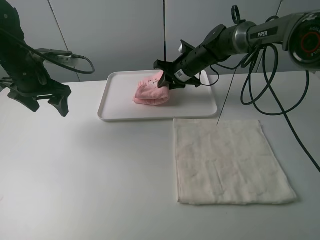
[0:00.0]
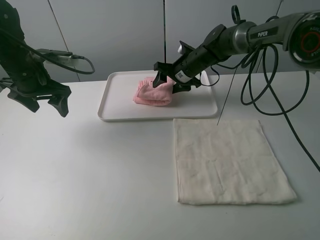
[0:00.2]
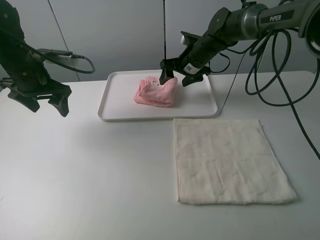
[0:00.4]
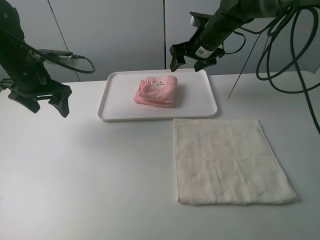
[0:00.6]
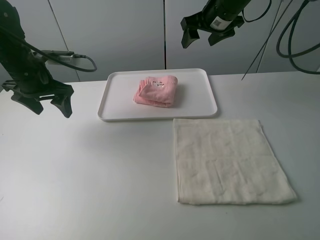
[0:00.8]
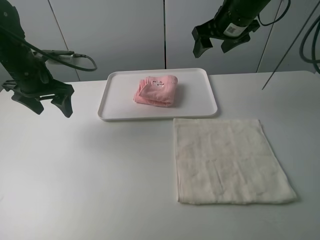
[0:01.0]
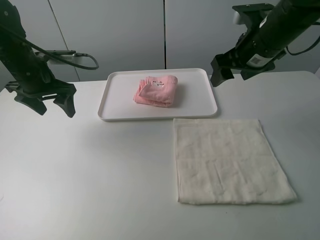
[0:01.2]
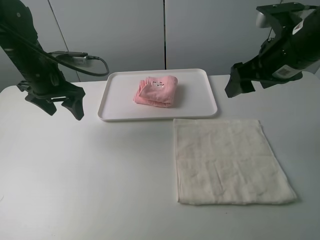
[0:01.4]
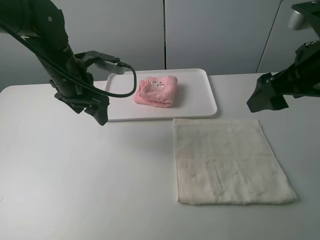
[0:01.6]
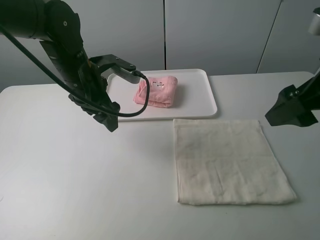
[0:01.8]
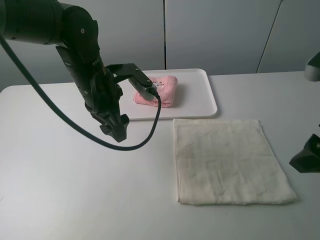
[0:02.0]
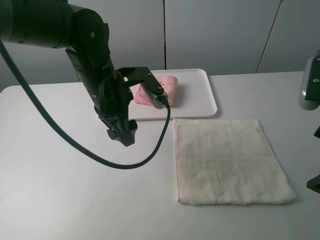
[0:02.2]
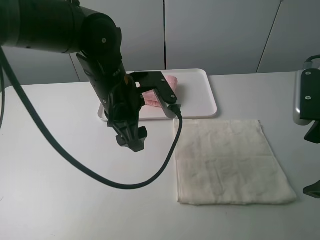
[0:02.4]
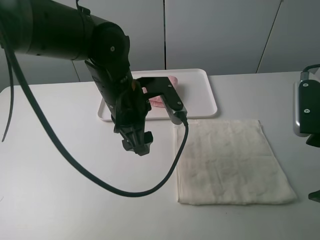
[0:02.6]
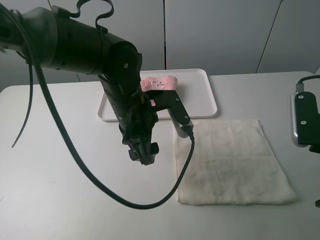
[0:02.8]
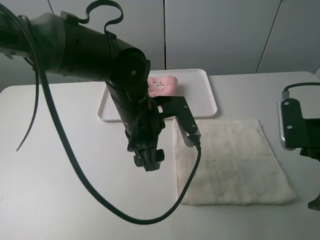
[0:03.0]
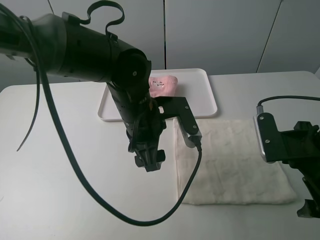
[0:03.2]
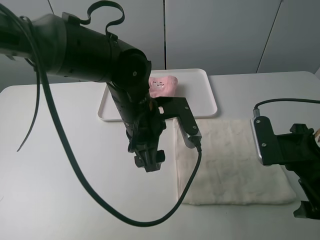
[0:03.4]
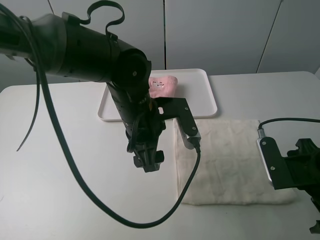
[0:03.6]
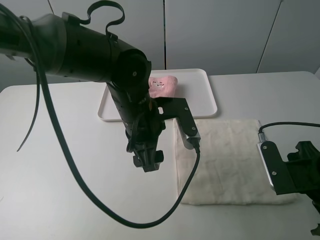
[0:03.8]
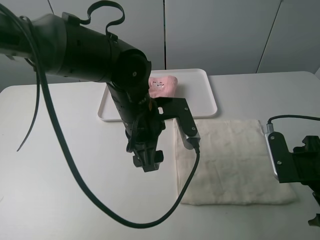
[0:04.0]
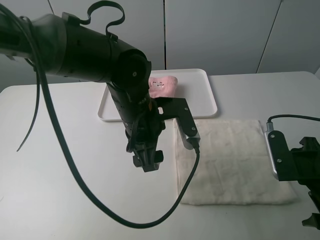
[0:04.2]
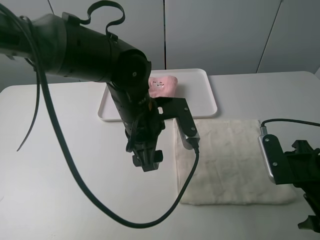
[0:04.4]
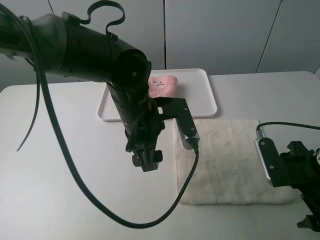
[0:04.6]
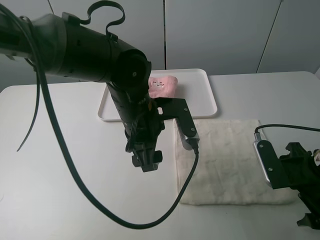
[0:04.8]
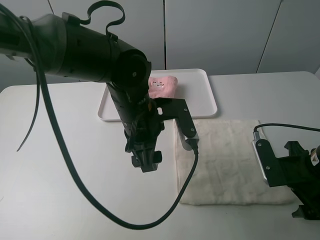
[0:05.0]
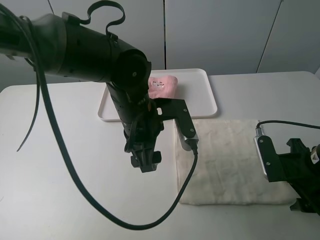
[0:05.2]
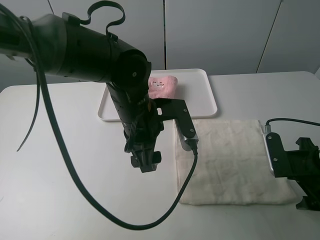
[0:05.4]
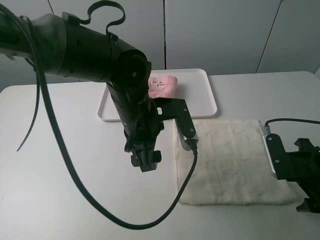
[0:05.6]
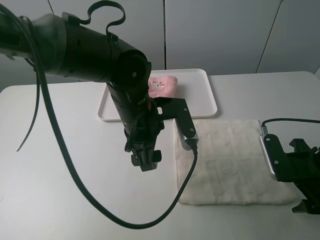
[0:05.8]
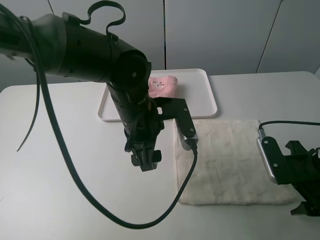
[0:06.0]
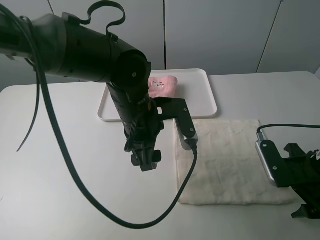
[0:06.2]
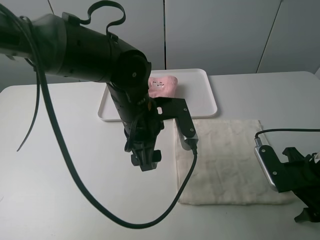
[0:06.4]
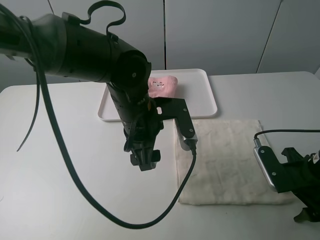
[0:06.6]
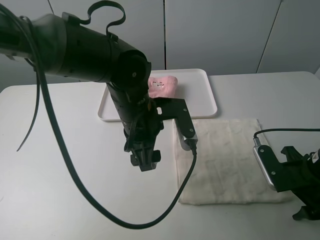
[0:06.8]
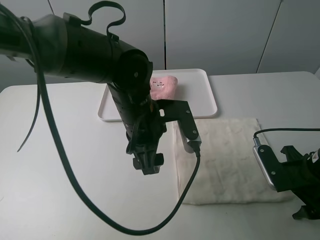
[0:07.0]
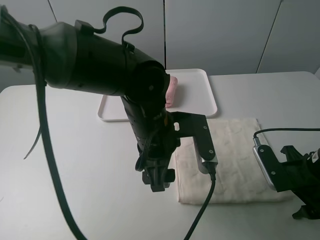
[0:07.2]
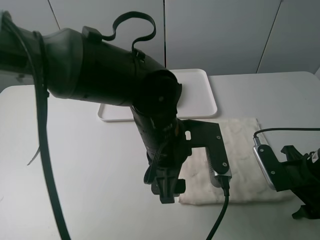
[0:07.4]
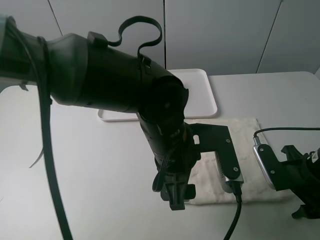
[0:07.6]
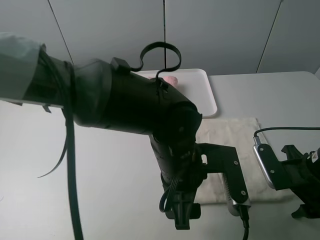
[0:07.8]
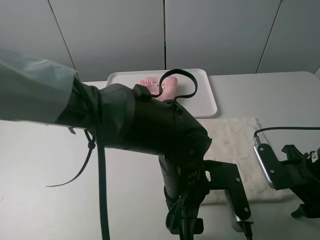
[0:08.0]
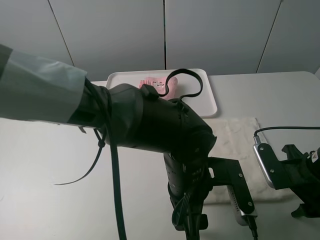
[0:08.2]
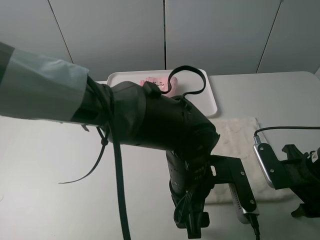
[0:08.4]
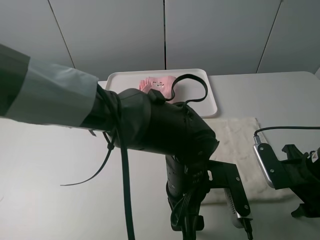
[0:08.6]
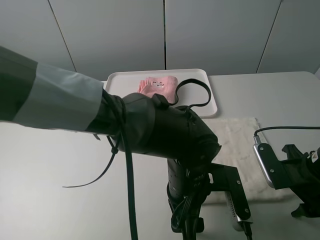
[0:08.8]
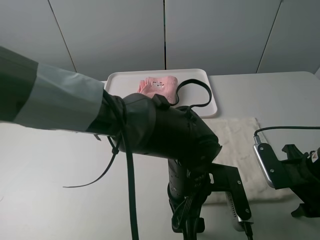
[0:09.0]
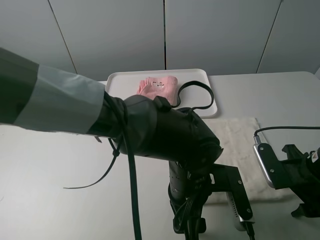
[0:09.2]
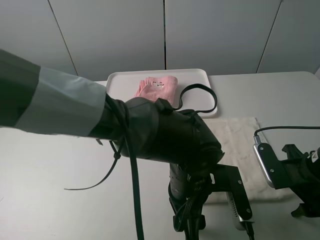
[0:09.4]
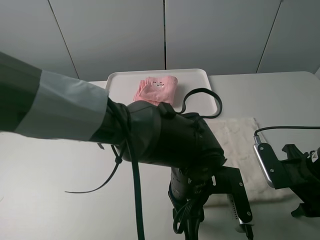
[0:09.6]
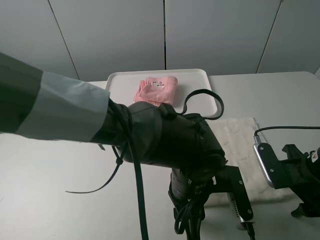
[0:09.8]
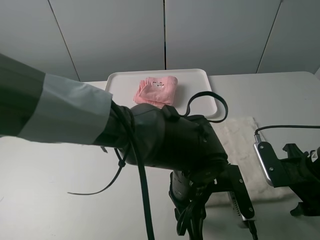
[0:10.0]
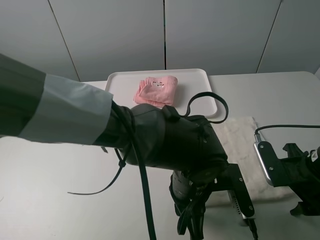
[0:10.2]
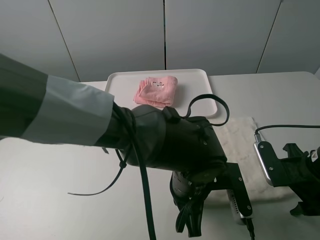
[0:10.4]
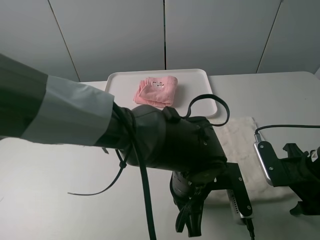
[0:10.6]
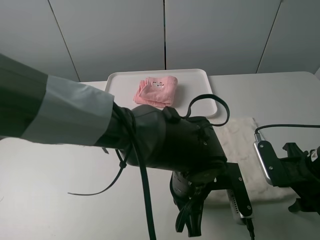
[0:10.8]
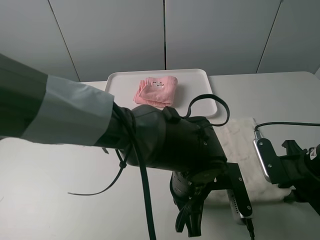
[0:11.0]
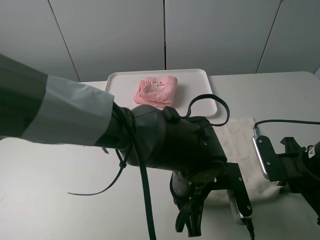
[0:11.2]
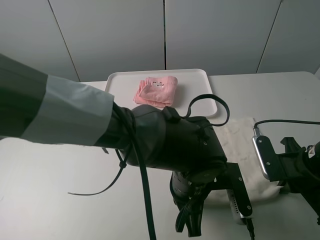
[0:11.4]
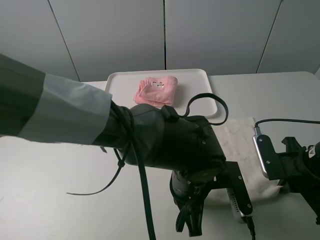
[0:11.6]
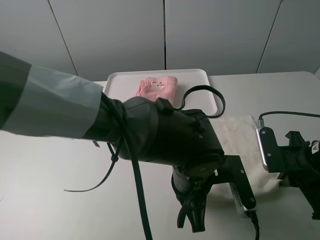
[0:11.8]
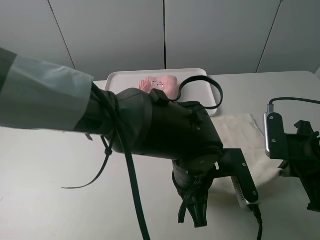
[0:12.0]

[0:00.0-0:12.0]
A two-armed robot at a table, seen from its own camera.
Task of the whole recording: fold one of the towels by two grippers and place it on the tray,then fold another towel by two grippers and place it on the folded towel.
Step, 0:00.6 to 0:11.4: Grasp the white towel with the left gripper.
0:00.0 to 0:01.6: The right gripper heads backward, upward and to the right, covering some 35 cm, and opens. The left gripper moves to the right, roughly 10 cm.
0:01.6 to 0:03.0: The left gripper goes about 15 cm to the right and backward. Meanwhile the right gripper is displaced downward and backward by some 10 cm.
0:03.0 to 0:04.4: The right gripper travels downward by approximately 5 cm.
0:04.4 to 0:06.0: There are only small adjustments of the grippers.
0:06.0 to 0:07.6: The left gripper heads backward and to the right, covering some 10 cm.
0:07.6 to 0:09.0: The left gripper is displaced downward by roughly 5 cm.
0:09.0 to 0:10.4: The left gripper closes its fingers.
0:10.4 to 0:12.0: The right gripper closes its fingers.

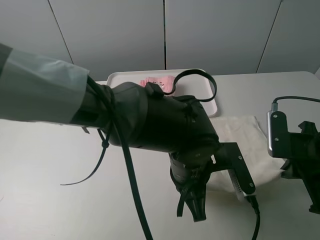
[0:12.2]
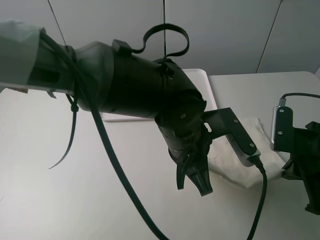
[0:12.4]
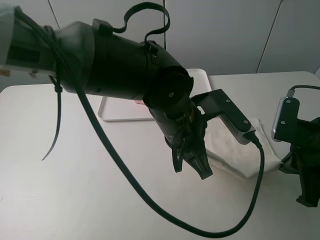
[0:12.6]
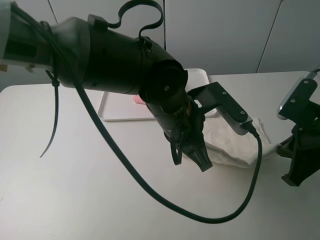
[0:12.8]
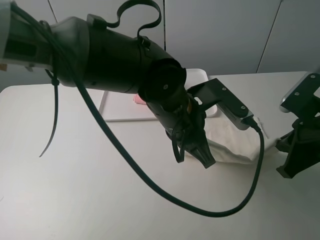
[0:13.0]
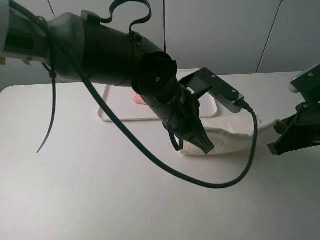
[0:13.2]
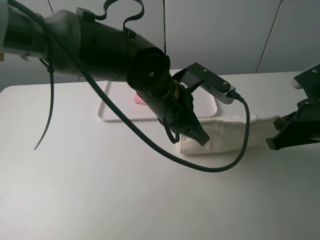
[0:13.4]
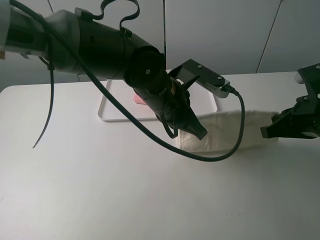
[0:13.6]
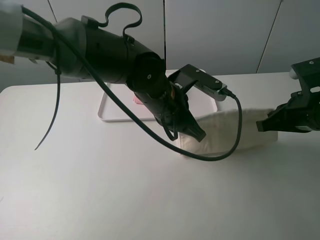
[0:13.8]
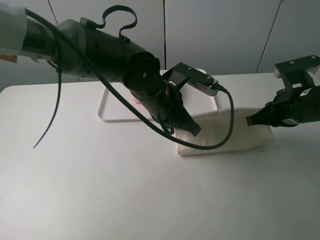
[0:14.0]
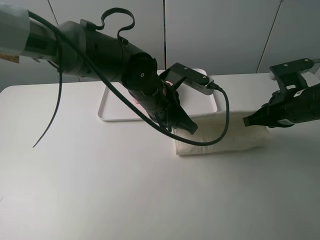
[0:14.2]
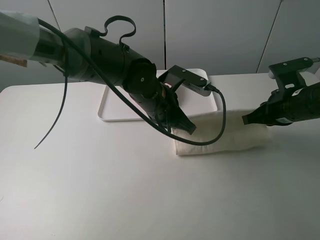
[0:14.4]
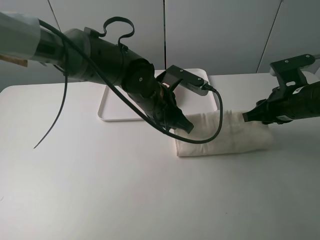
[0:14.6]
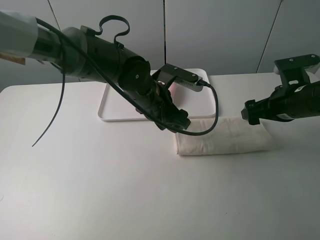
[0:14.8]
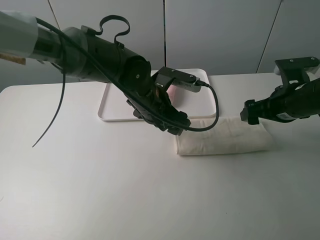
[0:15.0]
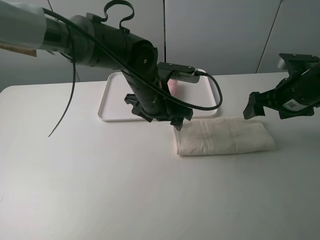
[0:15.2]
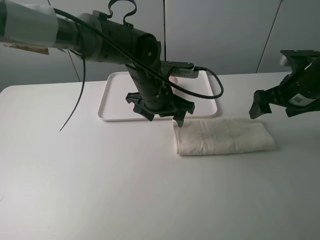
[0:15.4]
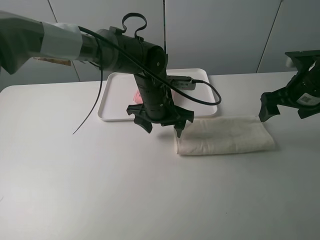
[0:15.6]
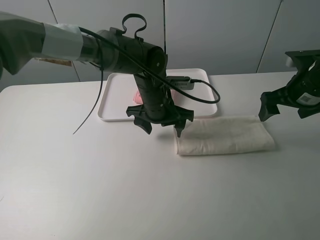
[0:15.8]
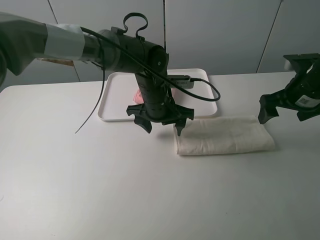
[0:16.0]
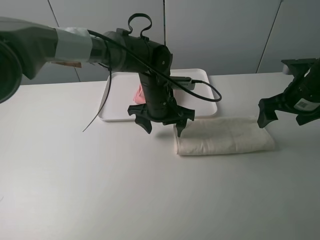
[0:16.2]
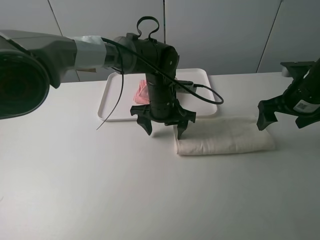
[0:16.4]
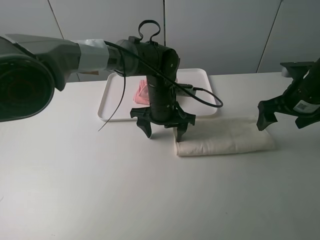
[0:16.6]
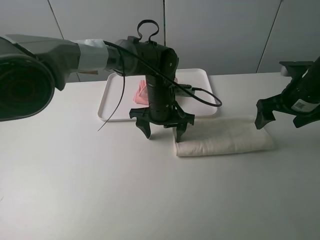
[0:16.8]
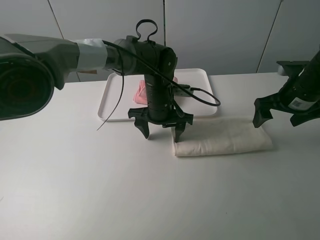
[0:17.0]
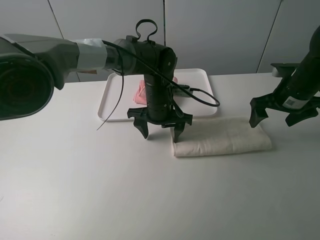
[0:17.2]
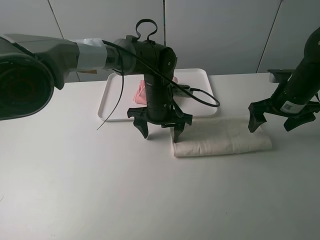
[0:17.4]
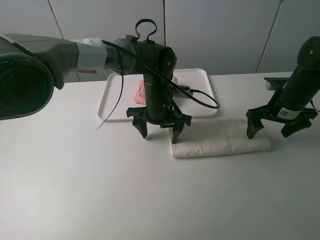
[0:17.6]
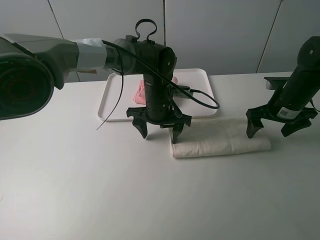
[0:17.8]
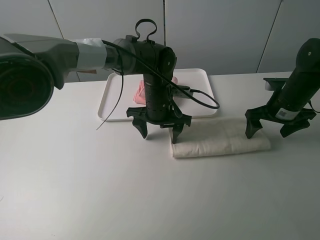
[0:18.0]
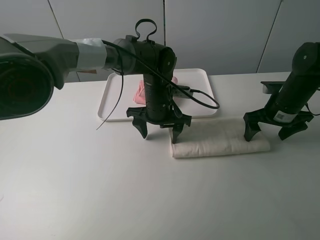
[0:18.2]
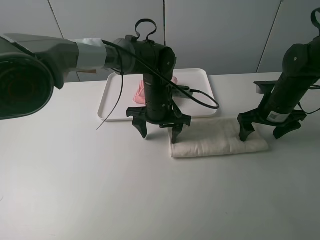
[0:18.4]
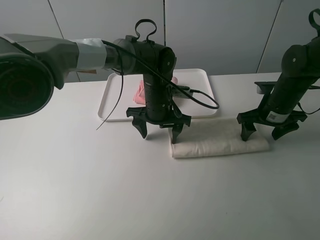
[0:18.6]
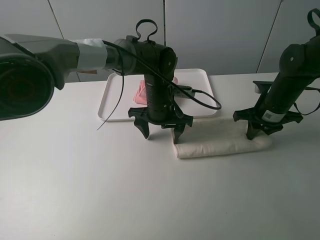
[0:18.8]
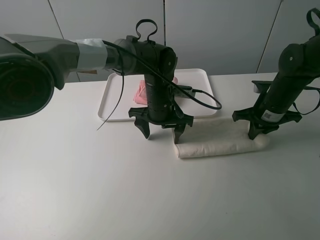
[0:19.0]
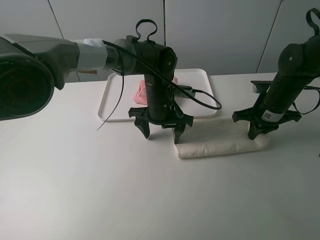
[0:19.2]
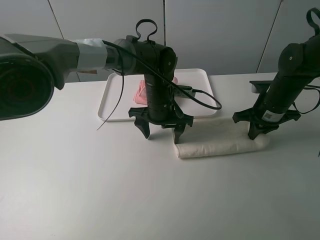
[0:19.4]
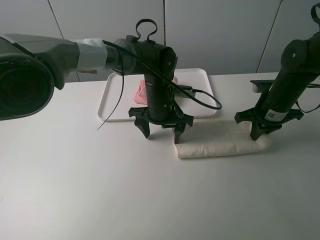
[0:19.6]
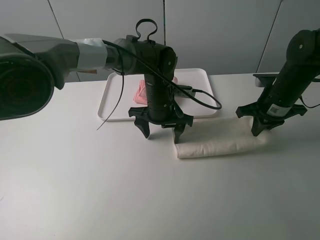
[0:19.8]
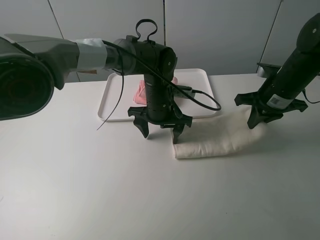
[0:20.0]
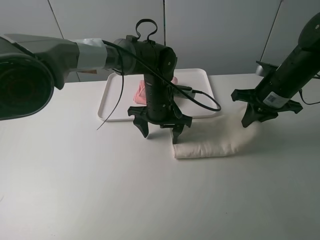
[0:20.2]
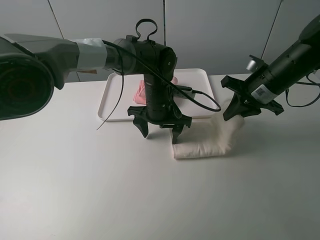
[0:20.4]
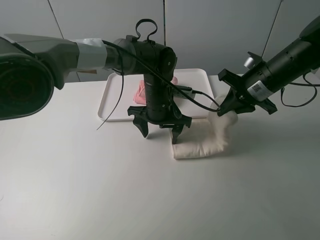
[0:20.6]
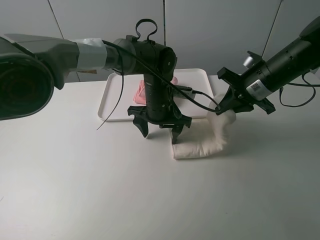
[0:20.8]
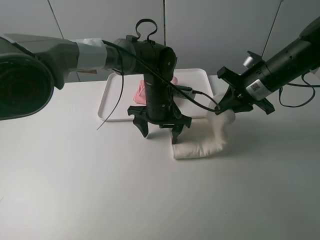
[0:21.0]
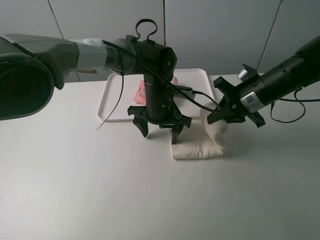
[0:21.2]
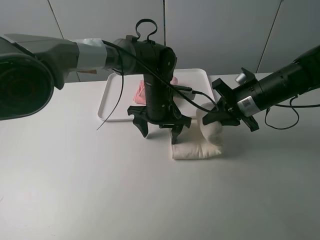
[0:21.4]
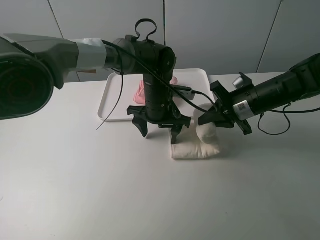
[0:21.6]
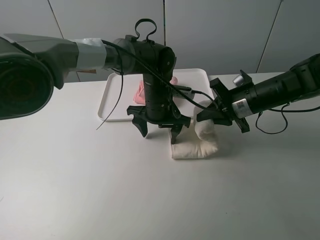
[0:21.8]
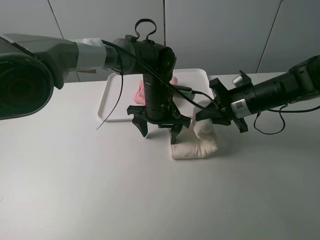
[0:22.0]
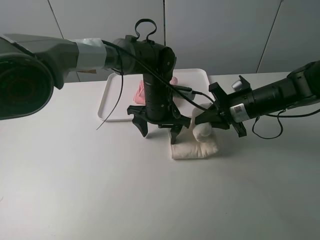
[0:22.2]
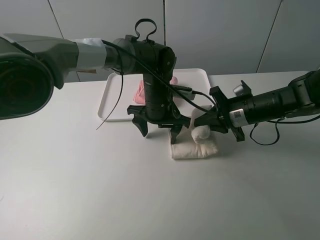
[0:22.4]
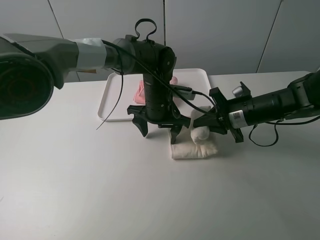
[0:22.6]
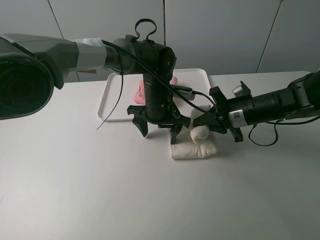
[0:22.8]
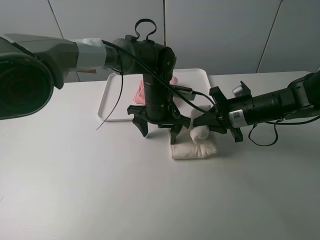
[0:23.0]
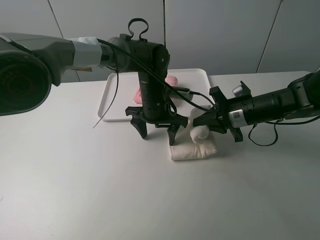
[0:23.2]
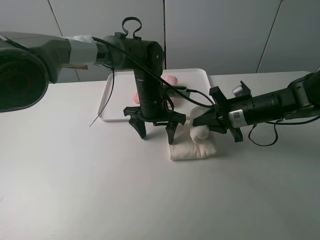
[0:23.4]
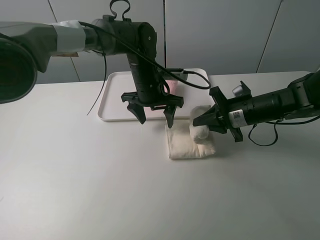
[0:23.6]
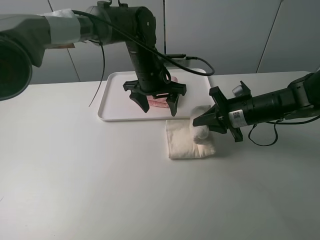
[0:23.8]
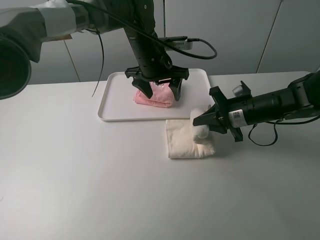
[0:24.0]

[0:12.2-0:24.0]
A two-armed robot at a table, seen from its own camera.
Task of the whole recording: fold one of the towels by two grippers and place it on the tray,then fold another towel by two grippers and place it on the folded towel.
Step, 0:12.2 to 0:15.0: Fold the white towel upwards with the left gripper.
Step, 0:15.2 to 0:17.2: Press the white towel with the left gripper.
Step, 0:17.4 to 0:19.2: Grasp the white towel with the right gripper.
0:12.2 to 0:13.6: The left gripper heads forward and upward, covering approximately 10 cm.
0:13.6 to 0:15.2: The right gripper shifts roughly 10 cm forward, and opens up; the left gripper shifts roughly 5 cm forward, and opens.
0:15.2 to 0:16.6: The left gripper moves downward, roughly 5 cm.
0:16.6 to 0:18.2: The right gripper goes roughly 5 cm downward.
0:18.2 to 0:19.6: The right gripper closes.
0:19.6 to 0:21.0: The right gripper heads upward, covering roughly 5 cm.
0:21.0 to 0:22.6: The right gripper heads downward, covering about 5 cm.
0:22.6 to 0:24.0: The left gripper travels upward and forward by roughly 10 cm.
